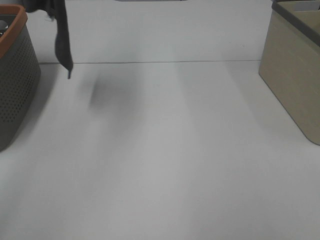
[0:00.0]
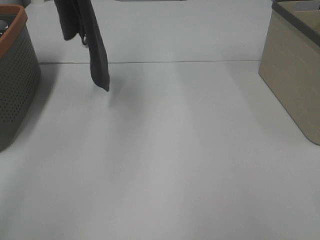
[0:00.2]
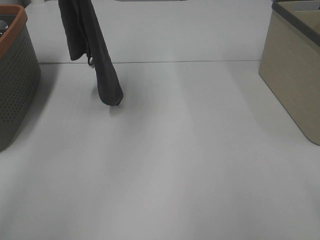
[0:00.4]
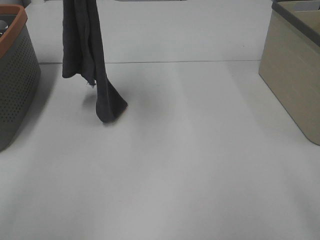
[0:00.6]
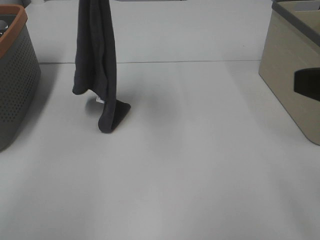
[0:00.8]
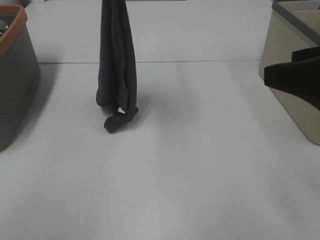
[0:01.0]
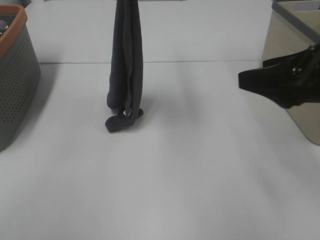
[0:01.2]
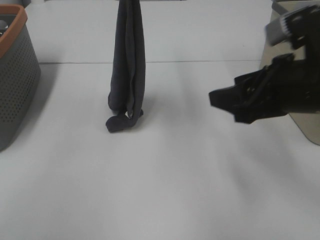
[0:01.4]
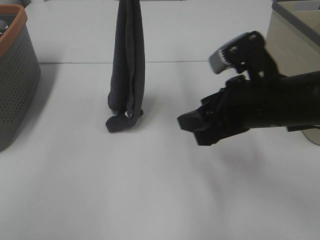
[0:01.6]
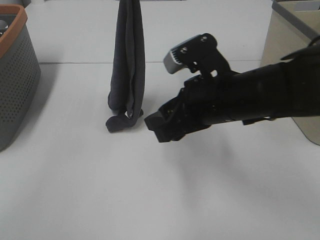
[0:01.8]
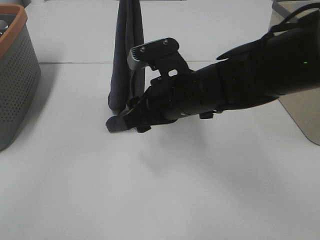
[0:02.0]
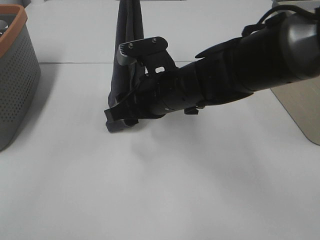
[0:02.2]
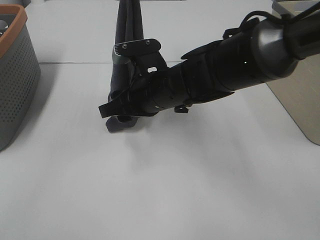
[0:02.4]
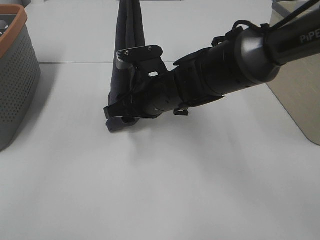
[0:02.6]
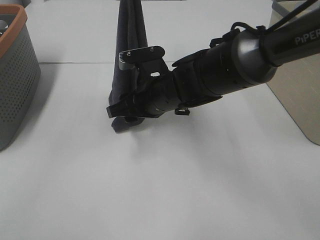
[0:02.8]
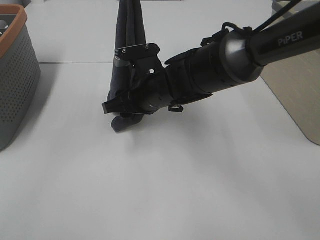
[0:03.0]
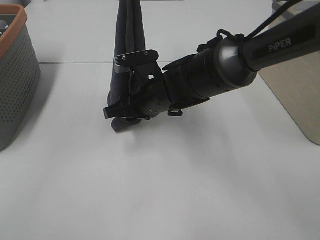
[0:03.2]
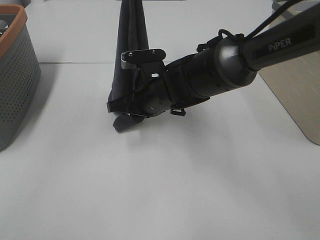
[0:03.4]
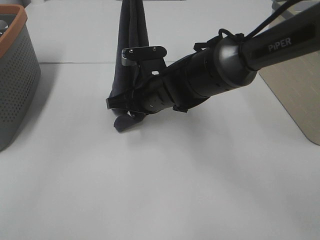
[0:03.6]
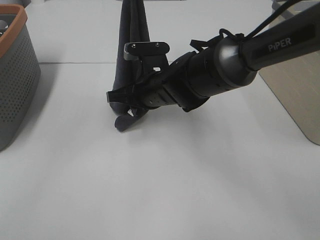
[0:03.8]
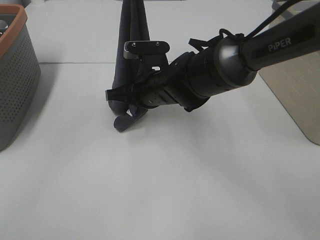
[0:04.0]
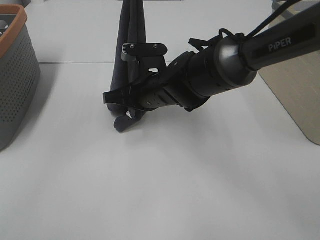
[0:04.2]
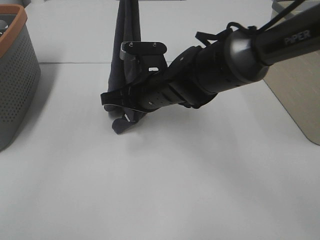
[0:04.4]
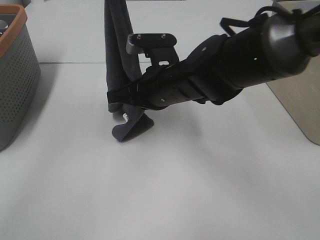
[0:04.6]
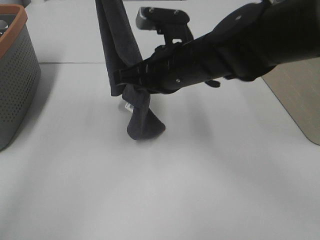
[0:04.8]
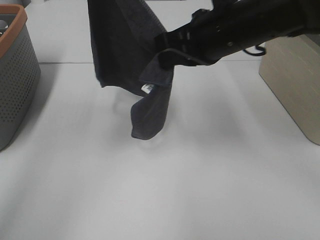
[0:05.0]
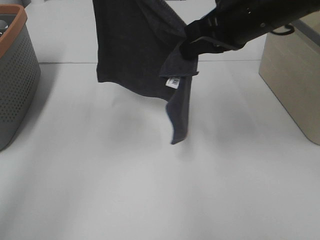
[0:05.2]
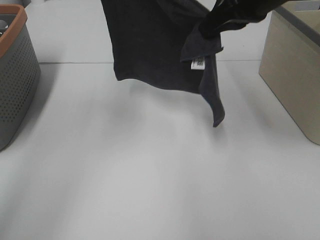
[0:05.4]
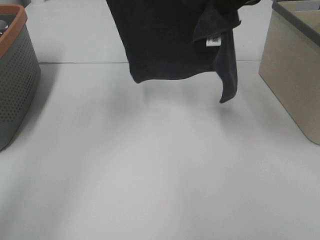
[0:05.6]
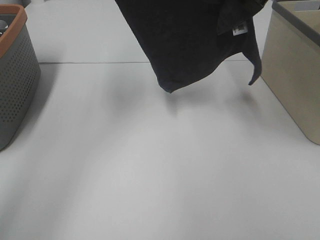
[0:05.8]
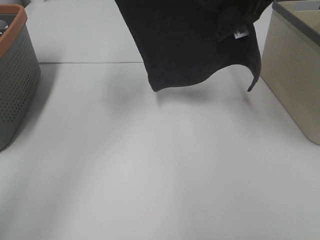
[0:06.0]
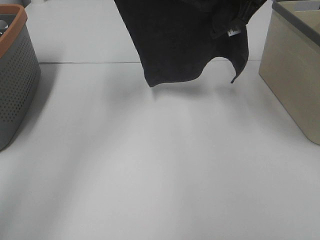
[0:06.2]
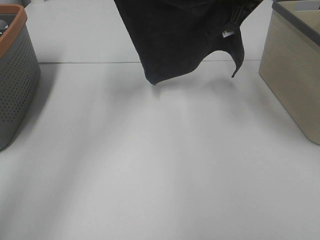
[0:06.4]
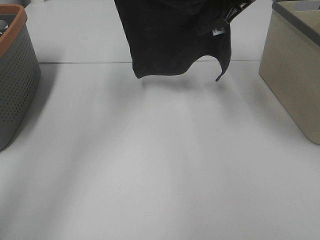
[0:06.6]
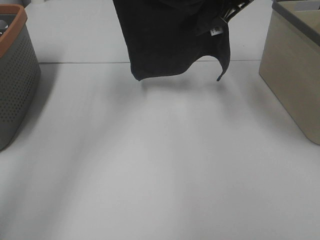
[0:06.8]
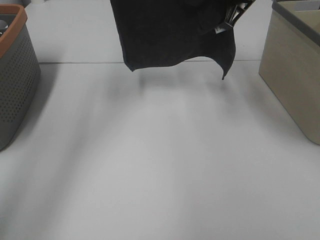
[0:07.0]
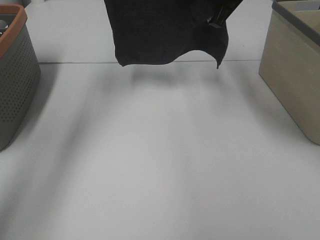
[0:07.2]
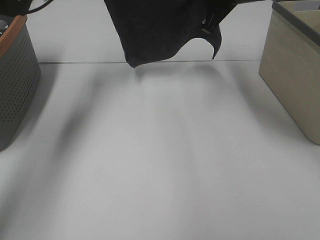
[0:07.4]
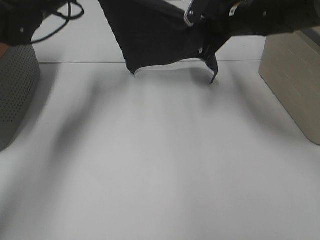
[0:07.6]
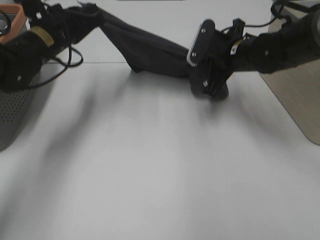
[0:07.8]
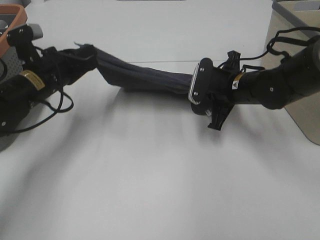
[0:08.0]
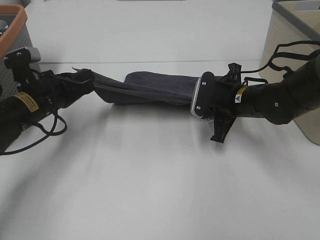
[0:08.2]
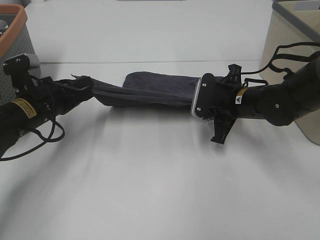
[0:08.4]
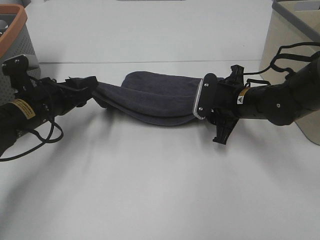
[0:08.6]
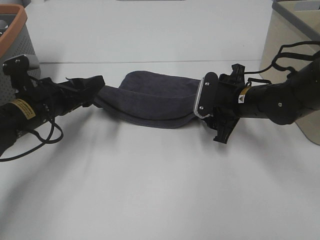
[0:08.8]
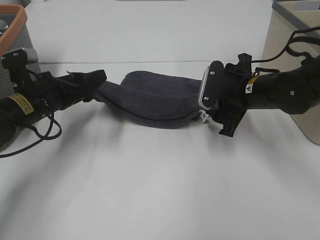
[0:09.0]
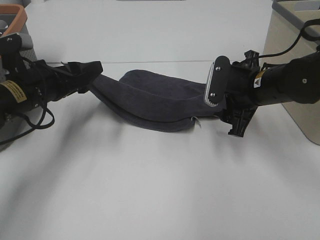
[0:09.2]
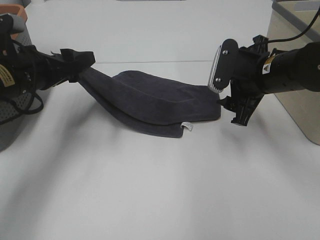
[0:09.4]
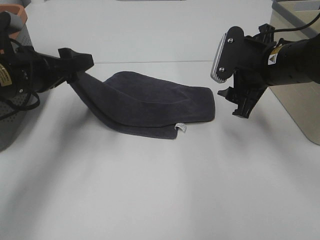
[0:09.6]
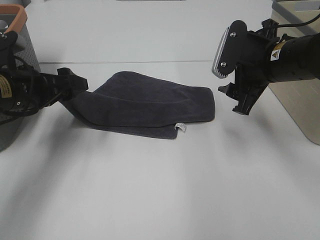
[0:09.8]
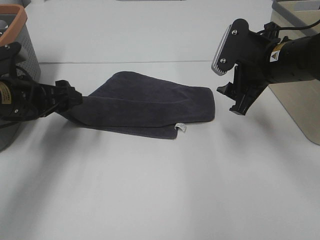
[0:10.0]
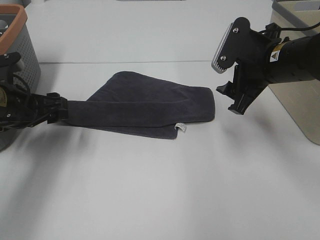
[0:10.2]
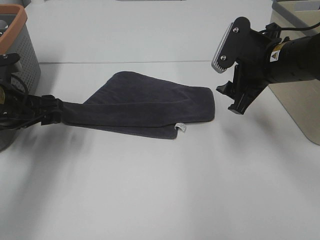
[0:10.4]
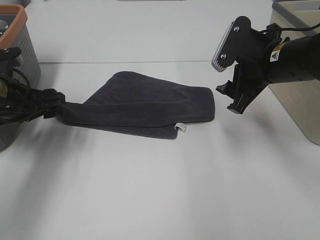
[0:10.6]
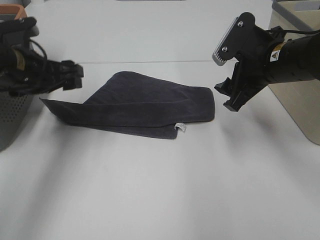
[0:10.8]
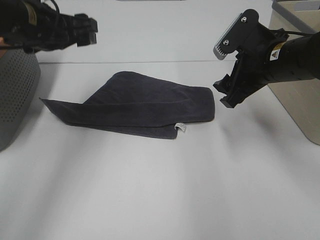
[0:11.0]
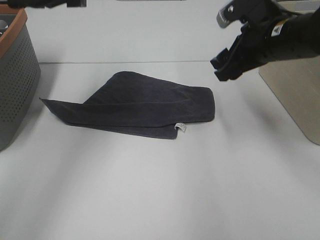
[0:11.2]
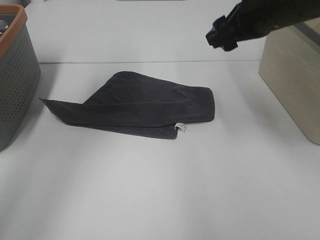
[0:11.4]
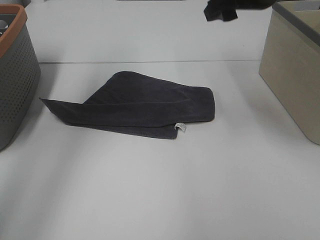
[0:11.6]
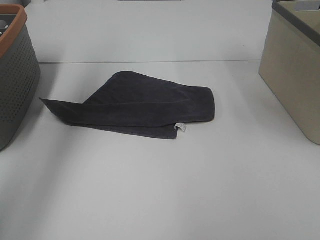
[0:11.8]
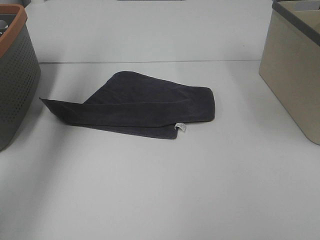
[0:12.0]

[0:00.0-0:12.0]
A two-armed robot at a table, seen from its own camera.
Task of the whole recording: Remove the towel and place it.
Step, 0.0 to 2.4 s: Right hand: grab a corner of the grey towel and straighten it.
Step, 2.6 to 5.0 s: Right hand: spread the grey towel flat on the table.
Step, 2.6 to 6.0 s: Left hand: spread the grey towel flat on the table.
0.0 to 1.6 s: The left gripper goes some 20 cm downward and to the right. The right gripper heads forward, to the left and downward, covering approximately 30 cm.
1.6 to 3.0 s: The right gripper goes approximately 20 cm to the left, forward and downward.
3.0 to 4.4 s: The right gripper closes its fingers.
4.4 to 6.0 s: The left gripper heads to the left and forward, covering approximately 10 cm, while the right gripper travels upward and to the right by some 25 cm.
6.0 to 7.6 s: The right gripper moves downward and forward, roughly 15 cm; the left gripper shifts some 10 cm downward.
7.6 to 9.0 s: Both grippers move backward and downward, roughly 15 cm. The right gripper opens its fingers, while the left gripper opens.
9.0 to 10.4 s: The right gripper shifts some 5 cm upward.
10.4 to 12.0 s: Both grippers travel together upward, approximately 25 cm.

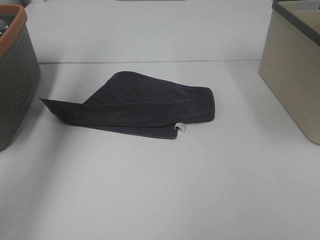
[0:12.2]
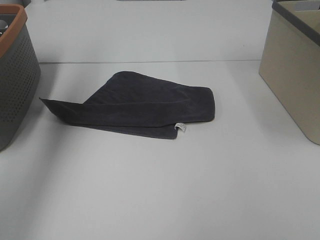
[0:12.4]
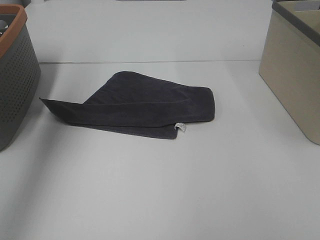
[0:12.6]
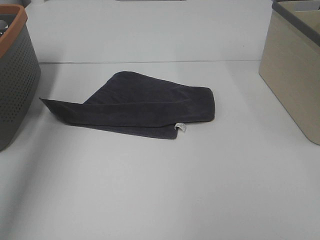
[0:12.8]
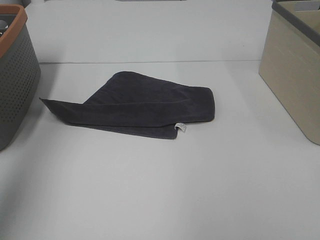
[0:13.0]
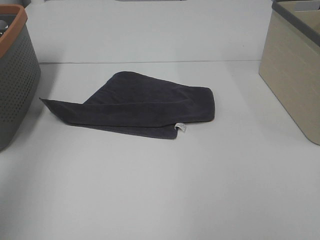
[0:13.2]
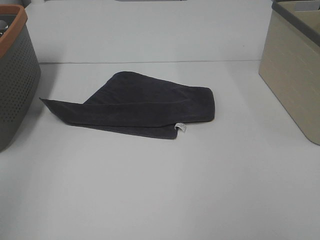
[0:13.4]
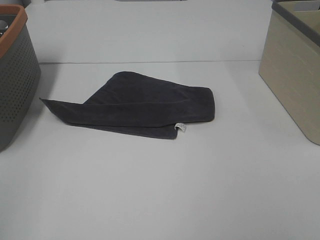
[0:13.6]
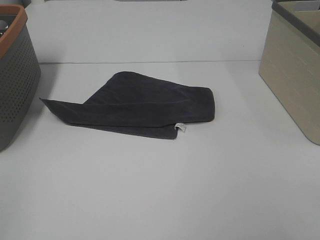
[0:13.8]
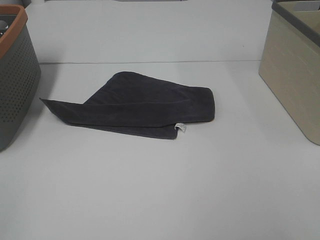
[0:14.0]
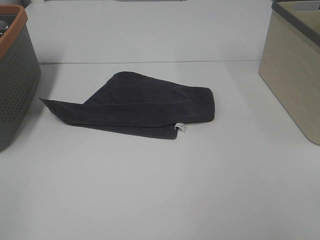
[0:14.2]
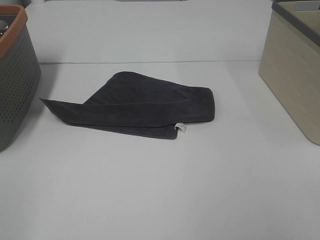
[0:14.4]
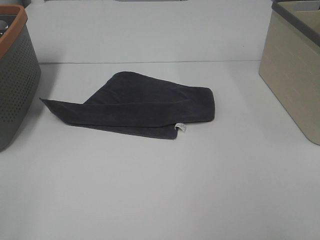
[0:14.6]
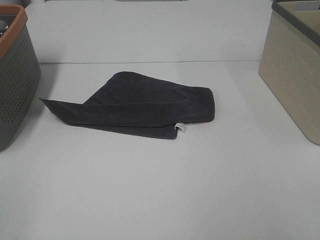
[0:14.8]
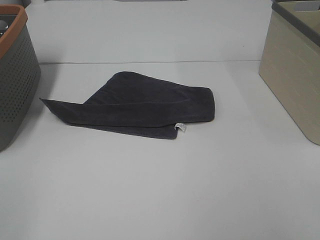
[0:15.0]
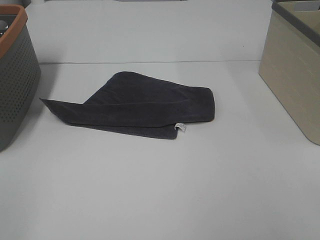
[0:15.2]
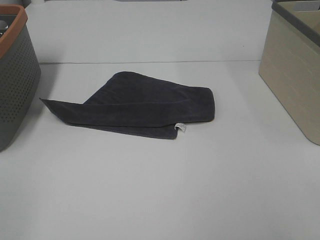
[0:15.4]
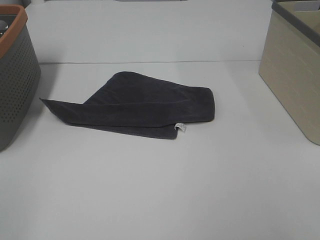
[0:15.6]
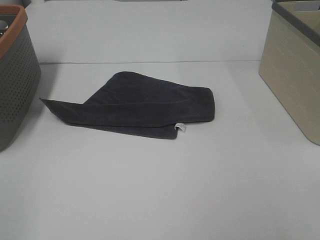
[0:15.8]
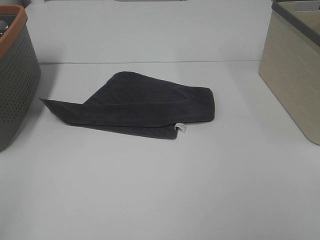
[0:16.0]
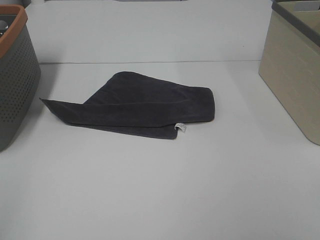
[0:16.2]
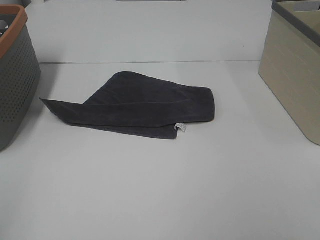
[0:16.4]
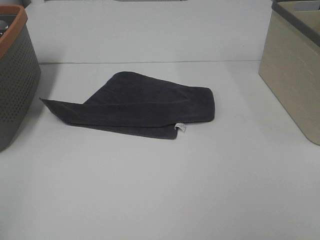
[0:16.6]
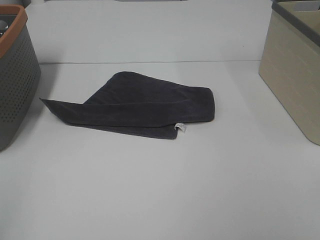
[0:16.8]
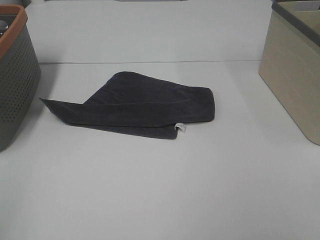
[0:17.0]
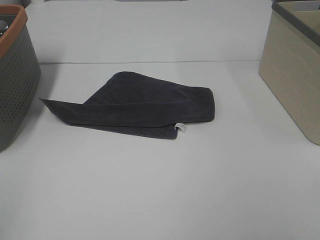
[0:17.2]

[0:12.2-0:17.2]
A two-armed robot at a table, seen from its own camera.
Task of the whole recording: Remove the towel and place it.
12.2 to 13.8 s: The left gripper shifts some 40 cm backward and downward.

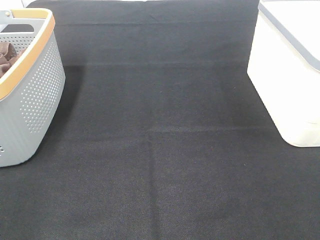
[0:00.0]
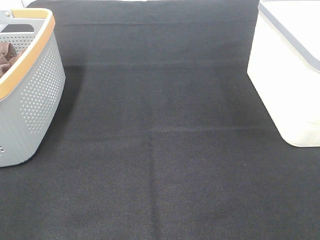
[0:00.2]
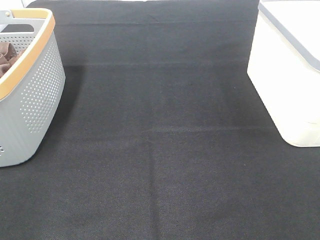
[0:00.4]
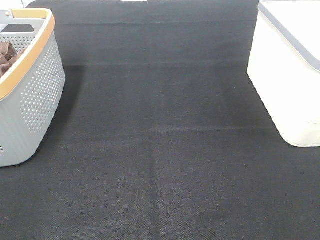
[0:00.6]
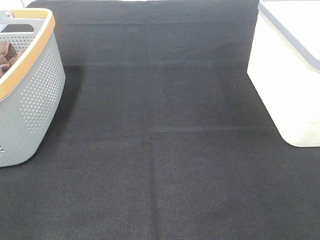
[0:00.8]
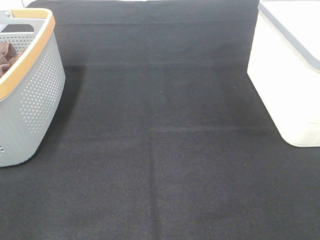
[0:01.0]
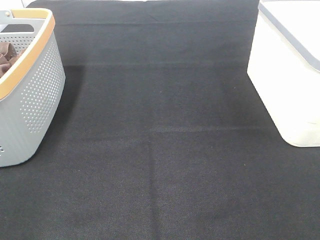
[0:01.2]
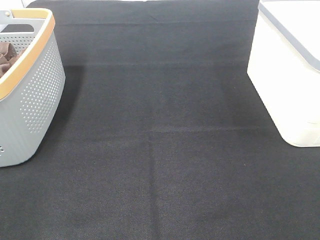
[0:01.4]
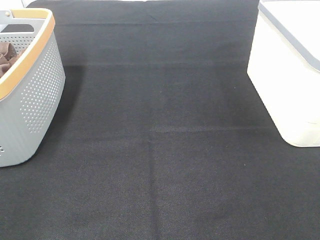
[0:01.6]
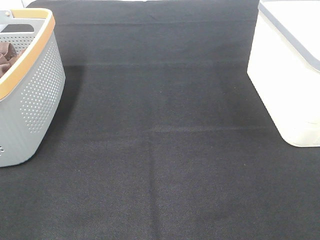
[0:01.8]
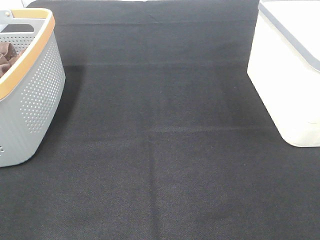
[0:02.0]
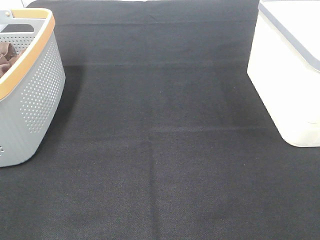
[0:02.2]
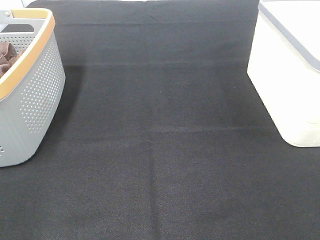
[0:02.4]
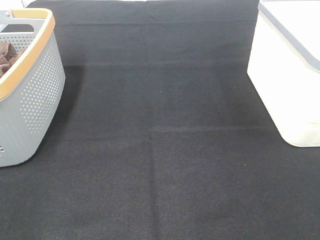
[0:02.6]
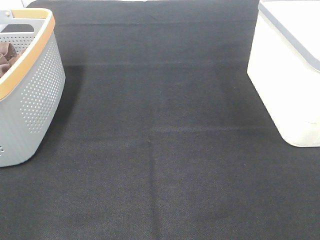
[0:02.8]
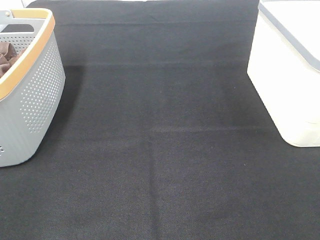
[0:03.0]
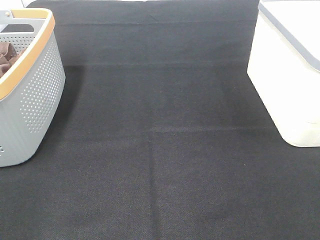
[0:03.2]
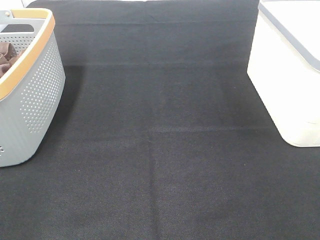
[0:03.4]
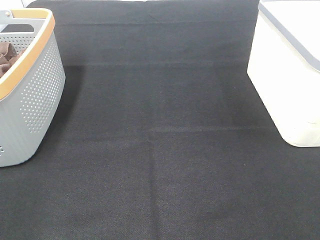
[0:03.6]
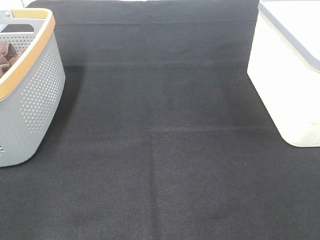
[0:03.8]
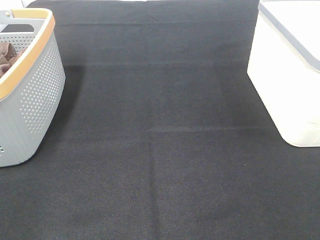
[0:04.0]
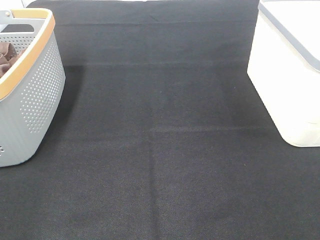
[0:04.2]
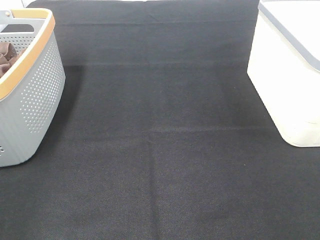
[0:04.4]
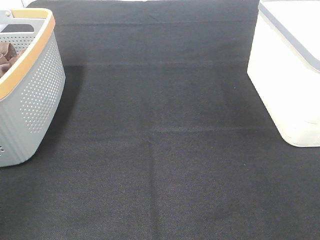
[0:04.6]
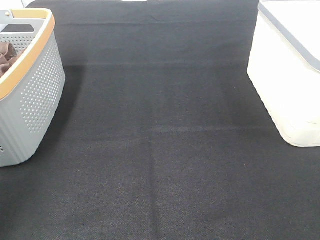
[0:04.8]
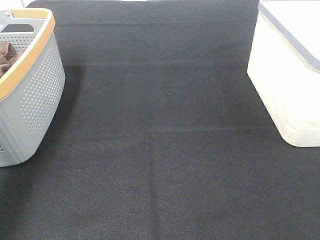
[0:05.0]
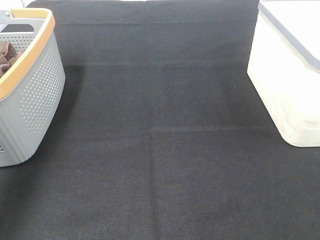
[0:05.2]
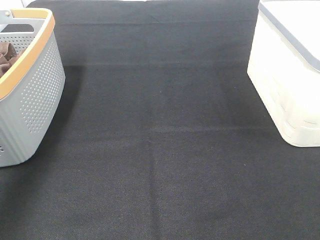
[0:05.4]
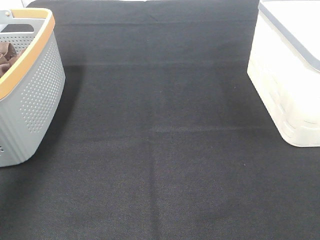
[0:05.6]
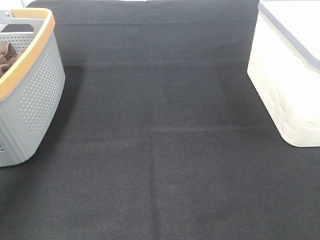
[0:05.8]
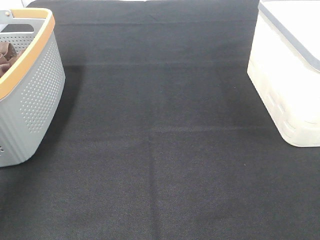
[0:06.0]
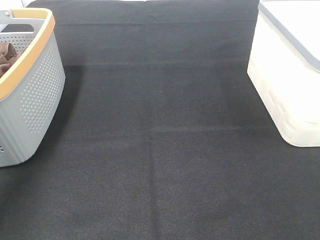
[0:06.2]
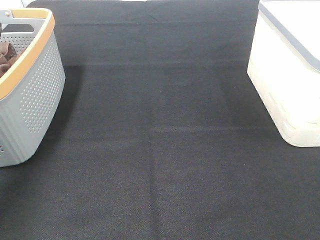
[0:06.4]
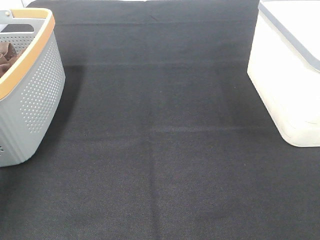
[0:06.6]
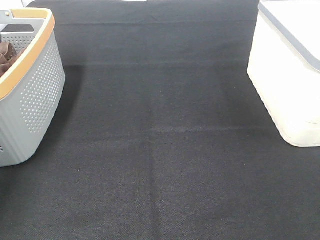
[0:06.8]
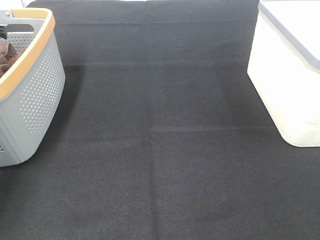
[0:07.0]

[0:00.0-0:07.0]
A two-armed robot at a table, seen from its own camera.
Task of the whole recording: Remove the towel and place it.
0.0 to 2.8 s: The two grippers keep their place.
4.2 to 5.6 s: The left gripper is displaced forward by approximately 40 cm.
